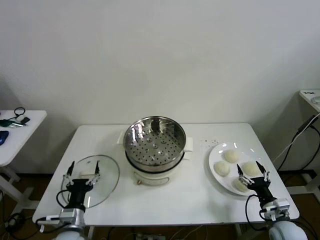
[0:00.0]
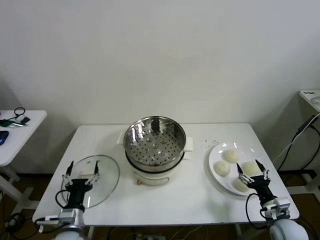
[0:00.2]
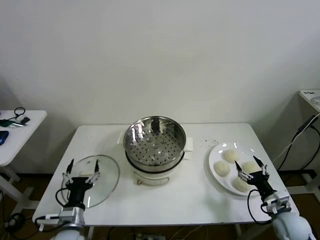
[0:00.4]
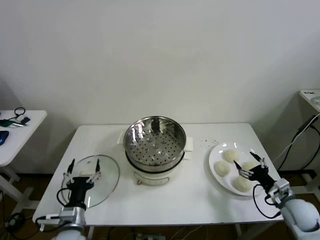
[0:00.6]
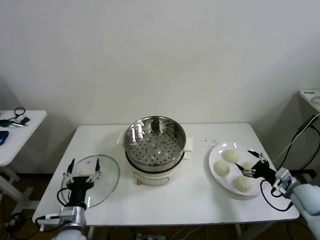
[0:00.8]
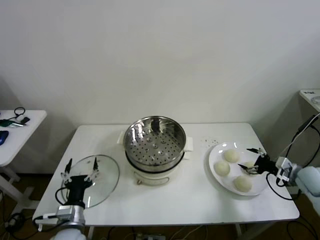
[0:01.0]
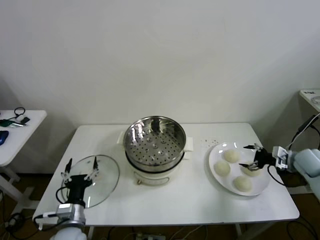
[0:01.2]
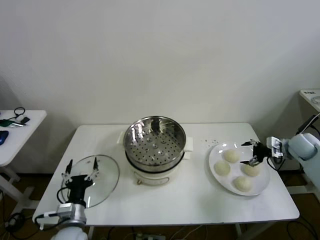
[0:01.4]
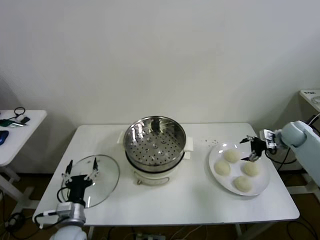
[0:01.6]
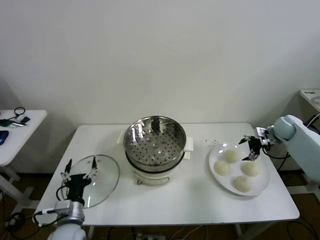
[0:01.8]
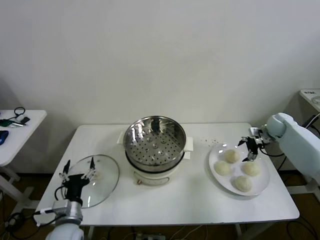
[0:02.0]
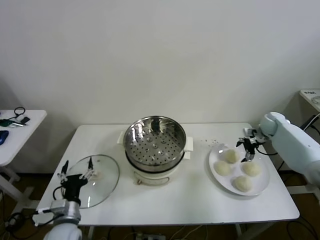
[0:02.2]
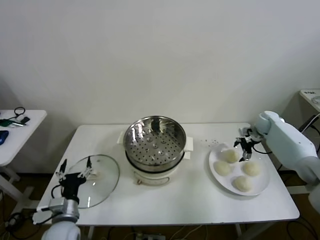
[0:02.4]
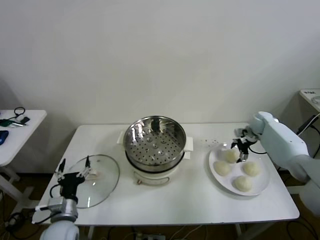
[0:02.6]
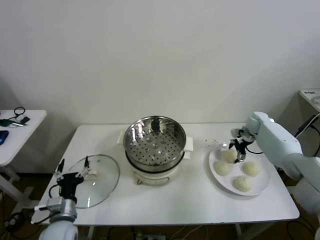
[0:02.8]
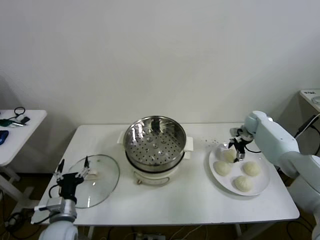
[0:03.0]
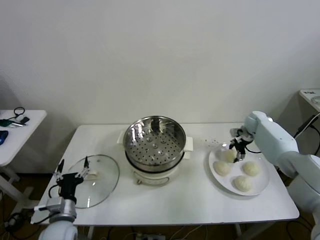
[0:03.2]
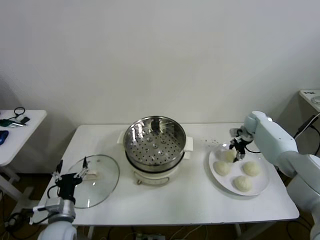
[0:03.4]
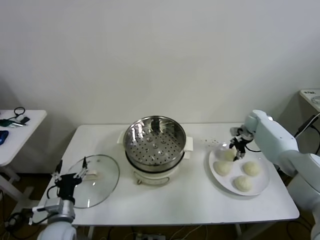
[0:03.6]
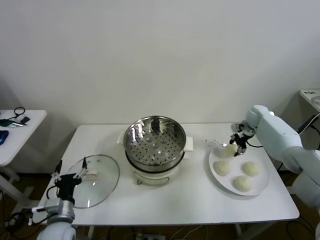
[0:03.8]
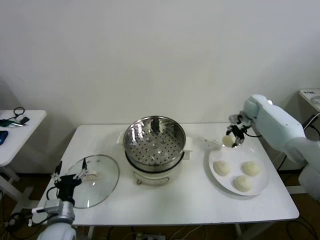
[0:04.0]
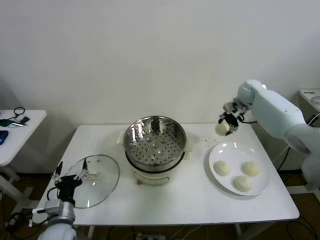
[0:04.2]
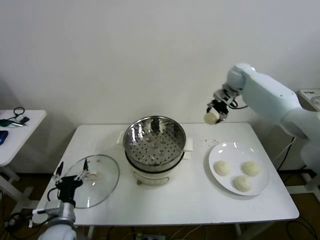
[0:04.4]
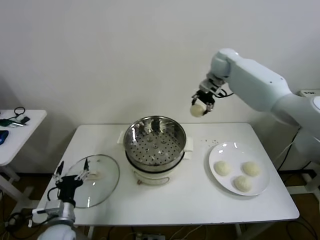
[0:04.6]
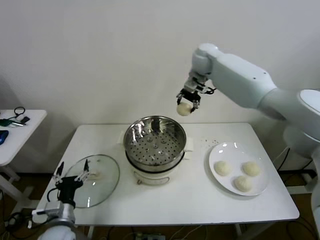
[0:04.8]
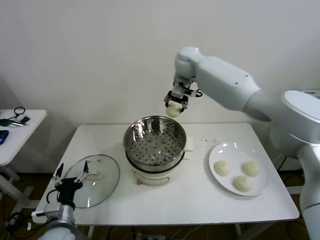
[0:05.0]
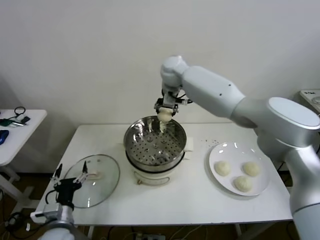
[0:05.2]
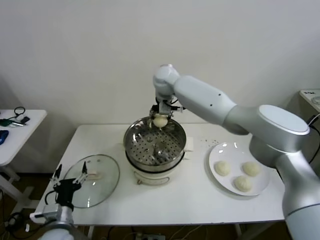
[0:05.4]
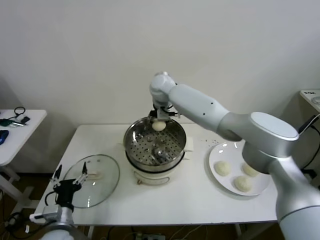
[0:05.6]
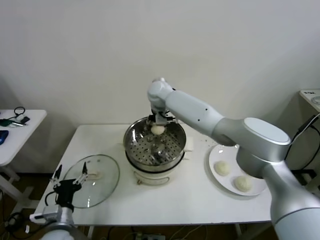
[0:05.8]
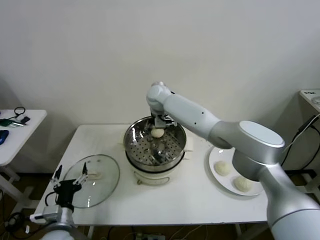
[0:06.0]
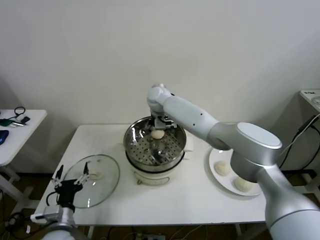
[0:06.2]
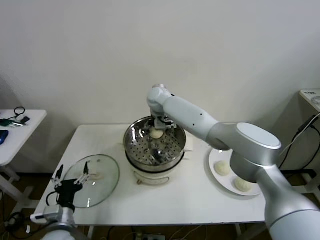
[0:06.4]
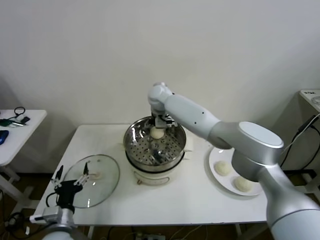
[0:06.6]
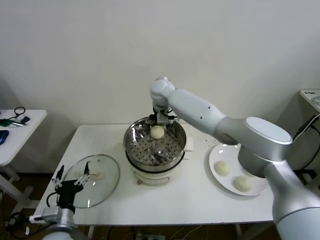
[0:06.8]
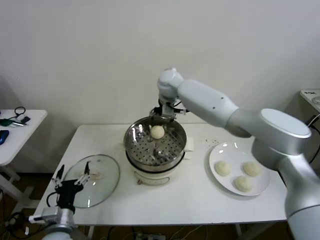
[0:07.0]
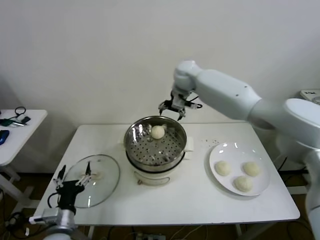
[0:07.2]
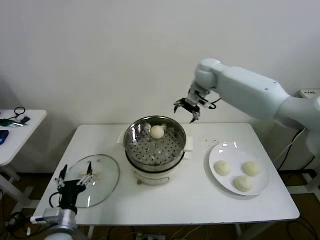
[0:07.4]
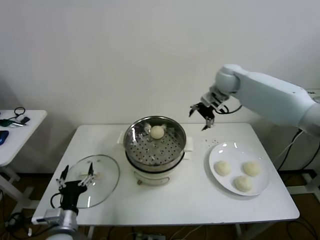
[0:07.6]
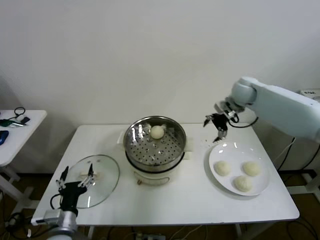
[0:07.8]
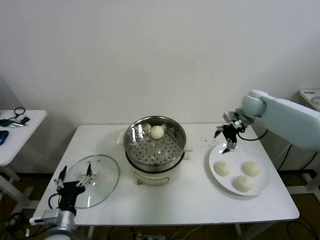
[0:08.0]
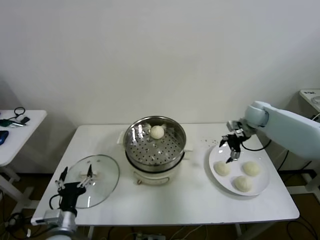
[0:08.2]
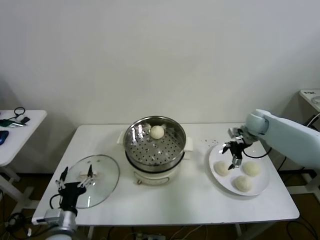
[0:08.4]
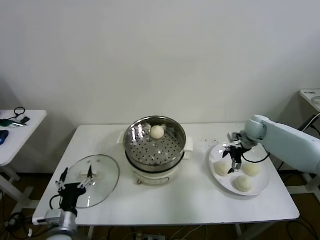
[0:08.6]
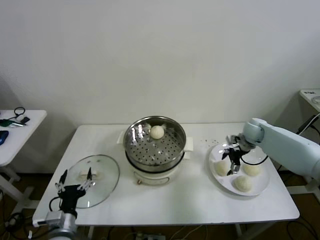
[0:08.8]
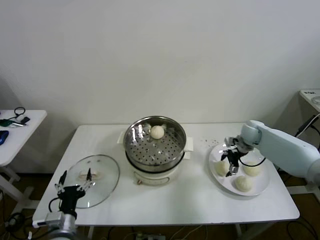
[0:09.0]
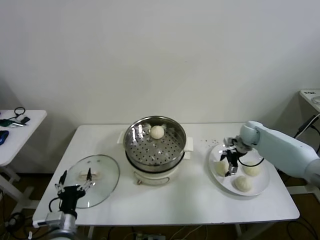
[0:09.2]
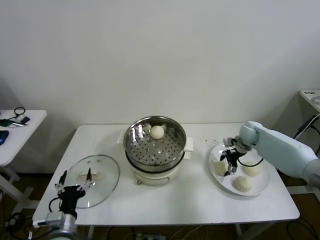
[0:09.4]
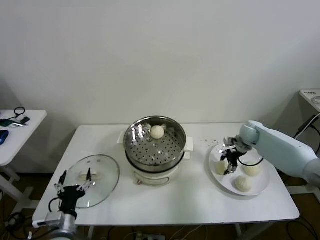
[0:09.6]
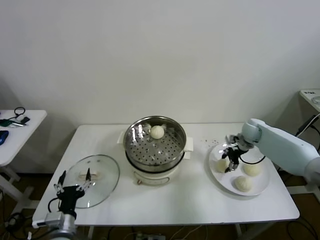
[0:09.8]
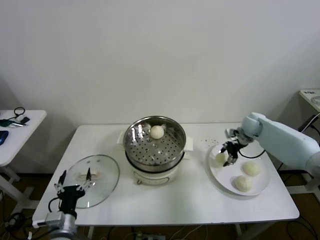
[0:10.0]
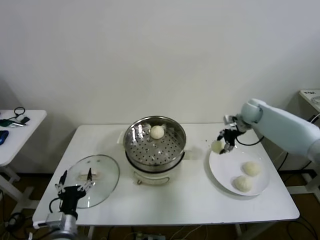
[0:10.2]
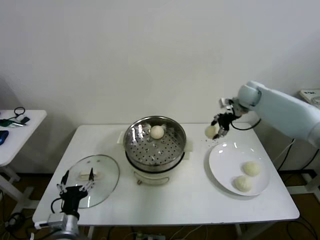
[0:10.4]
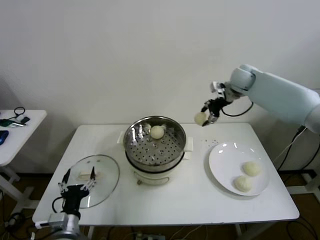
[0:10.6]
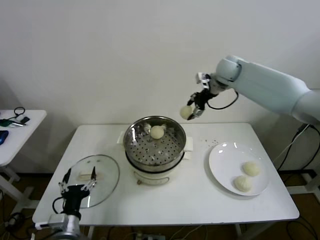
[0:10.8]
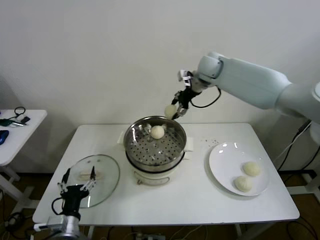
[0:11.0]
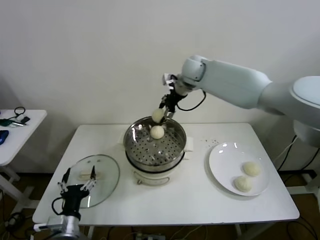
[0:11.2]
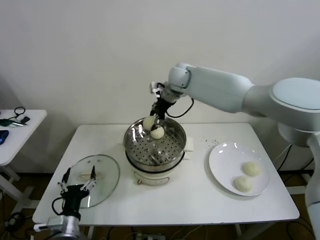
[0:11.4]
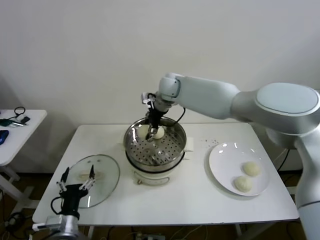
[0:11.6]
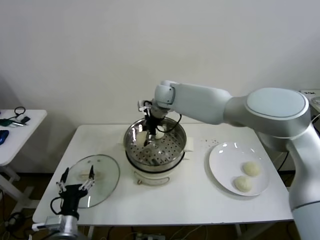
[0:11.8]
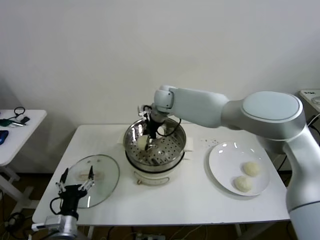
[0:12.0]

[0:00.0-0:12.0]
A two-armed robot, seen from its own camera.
Step, 0:00.0 to 0:03.4: Grasp the baozi in the plate with right gripper.
Step, 0:03.6 to 0:06.4: Place the baozi on the steamer with right gripper.
Step, 0:06.6 to 0:09.4: Grasp the baozi in the plate with right gripper.
0:01.6 to 0:03.0: The right gripper moves forward and to the left, some 10 cm, and closes its fingers.
0:03.0 to 0:04.4: The right gripper is displaced upward and to the left by approximately 30 cm, and closes.
0:04.4 to 0:06.0: The right gripper goes approximately 25 cm to the left.
0:06.0 to 0:07.6: The right gripper heads to the right, covering about 30 cm, and opens up.
0:07.6 to 0:09.0: The right gripper moves downward and to the right, some 25 cm.
0:09.0 to 0:10.4: The right gripper heads upward, covering about 20 cm, and closes up.
0:10.4 to 0:12.0: The right gripper is displaced to the left by about 30 cm.

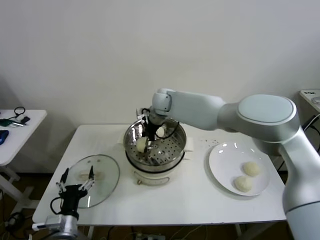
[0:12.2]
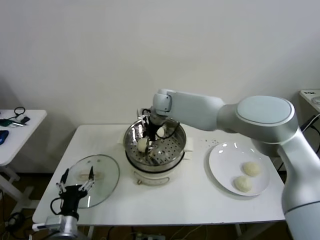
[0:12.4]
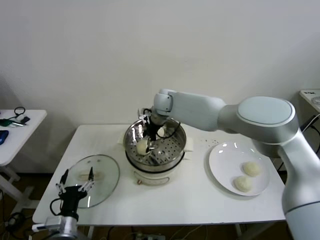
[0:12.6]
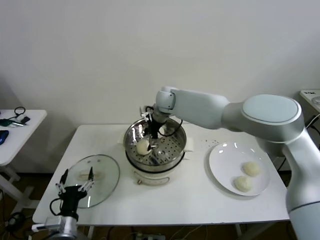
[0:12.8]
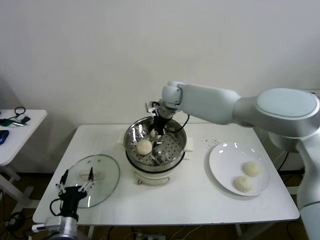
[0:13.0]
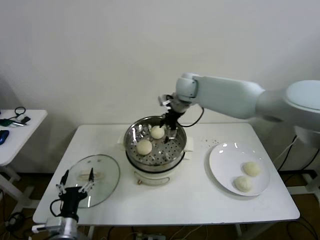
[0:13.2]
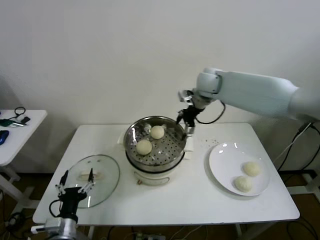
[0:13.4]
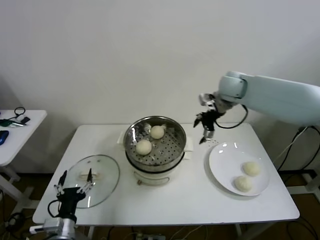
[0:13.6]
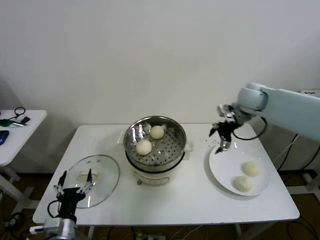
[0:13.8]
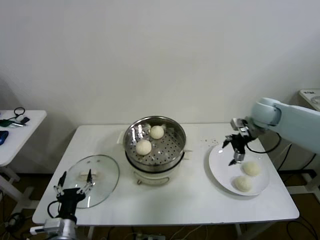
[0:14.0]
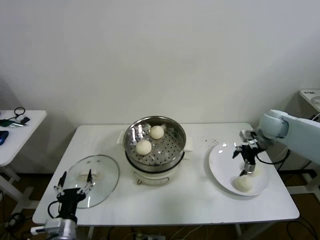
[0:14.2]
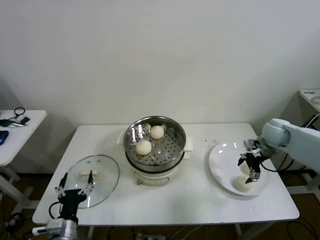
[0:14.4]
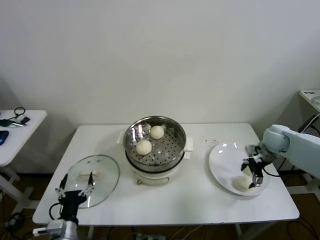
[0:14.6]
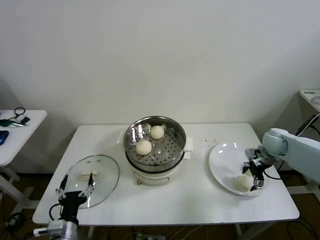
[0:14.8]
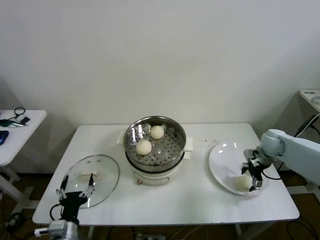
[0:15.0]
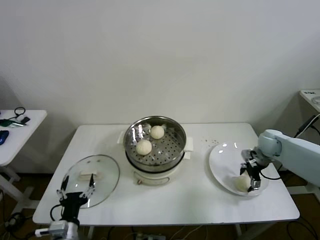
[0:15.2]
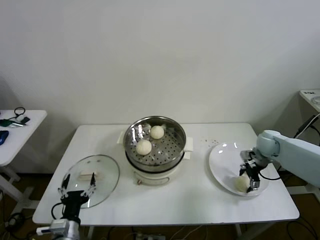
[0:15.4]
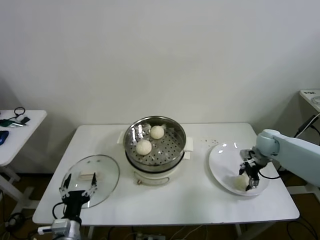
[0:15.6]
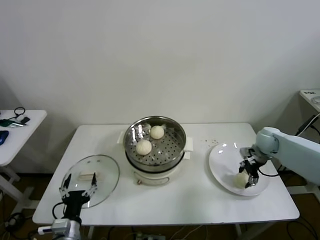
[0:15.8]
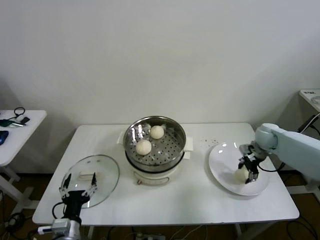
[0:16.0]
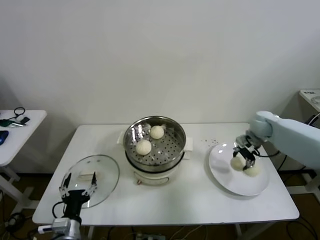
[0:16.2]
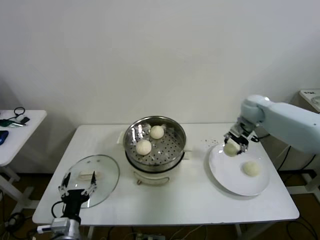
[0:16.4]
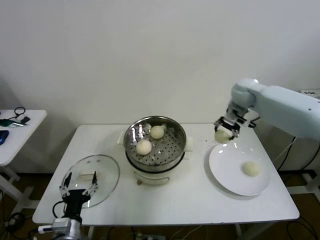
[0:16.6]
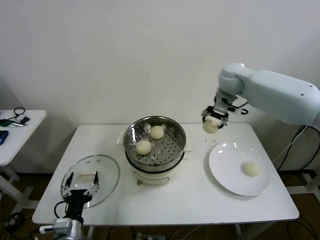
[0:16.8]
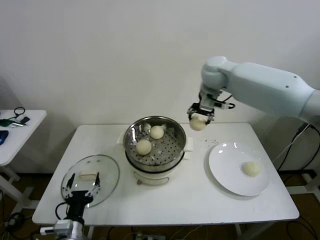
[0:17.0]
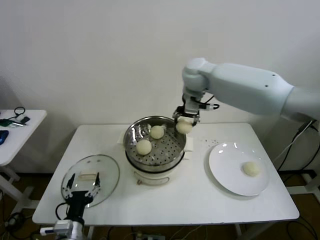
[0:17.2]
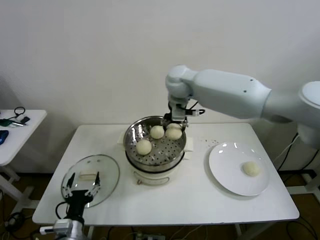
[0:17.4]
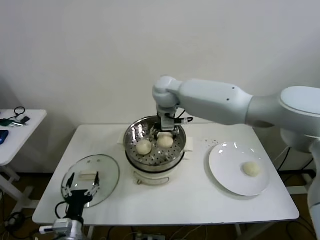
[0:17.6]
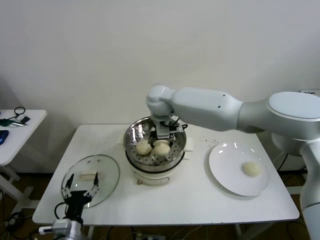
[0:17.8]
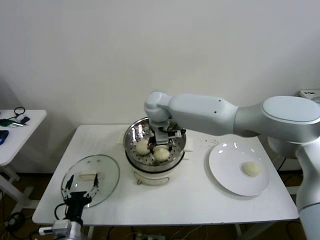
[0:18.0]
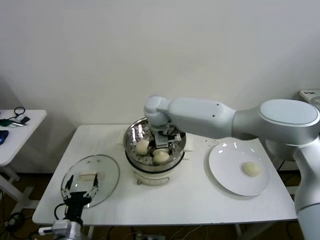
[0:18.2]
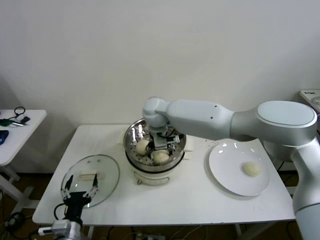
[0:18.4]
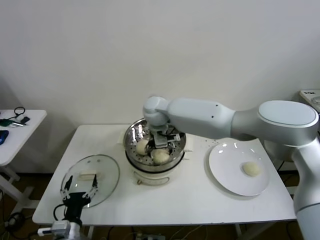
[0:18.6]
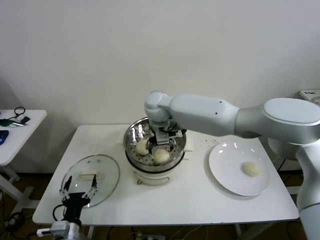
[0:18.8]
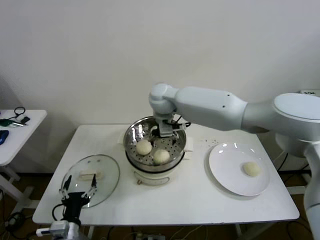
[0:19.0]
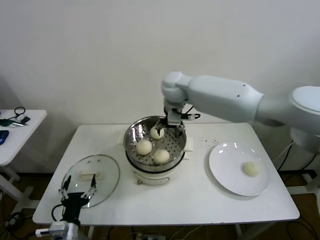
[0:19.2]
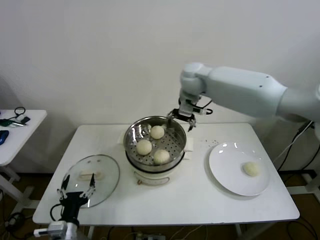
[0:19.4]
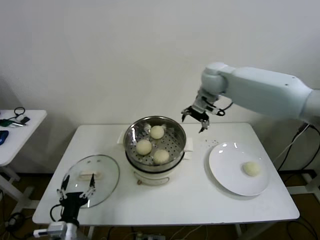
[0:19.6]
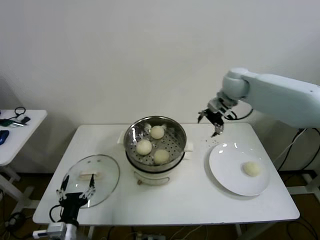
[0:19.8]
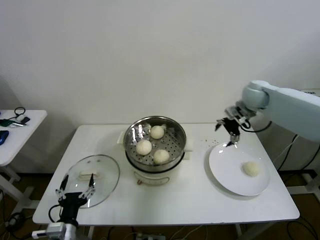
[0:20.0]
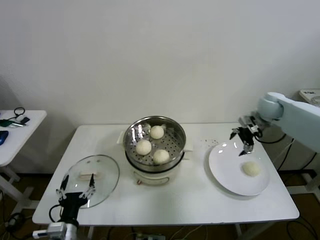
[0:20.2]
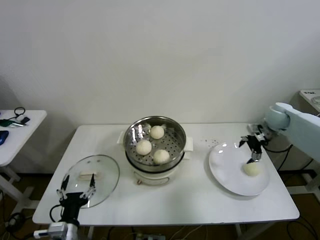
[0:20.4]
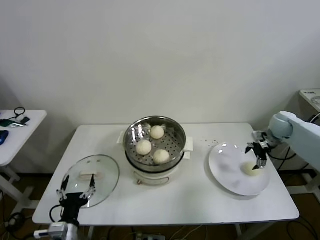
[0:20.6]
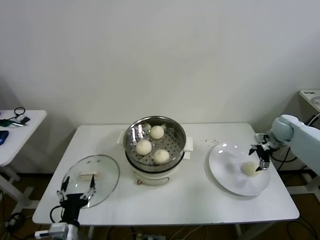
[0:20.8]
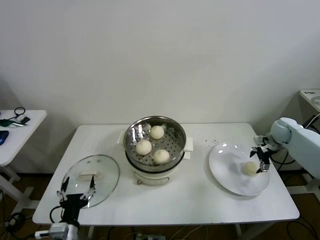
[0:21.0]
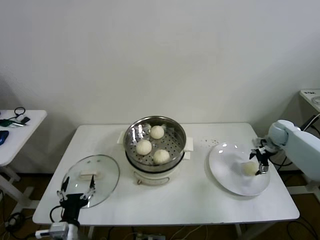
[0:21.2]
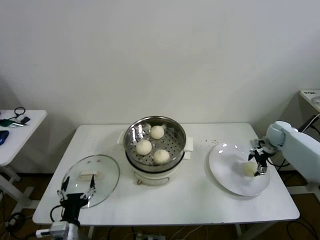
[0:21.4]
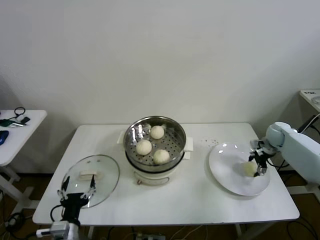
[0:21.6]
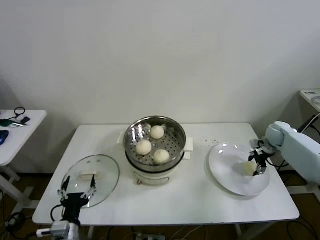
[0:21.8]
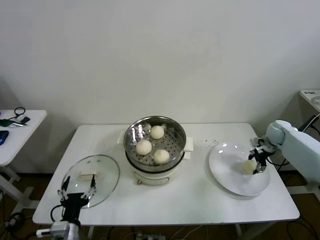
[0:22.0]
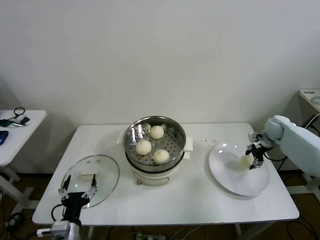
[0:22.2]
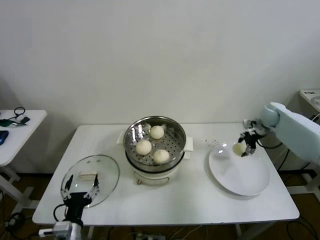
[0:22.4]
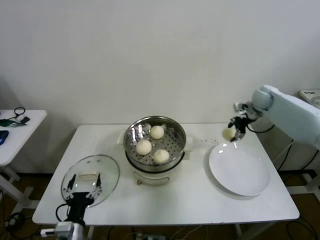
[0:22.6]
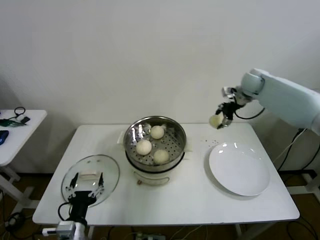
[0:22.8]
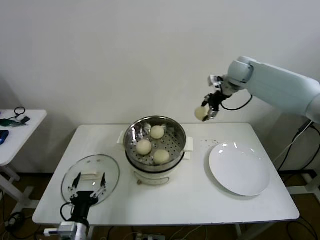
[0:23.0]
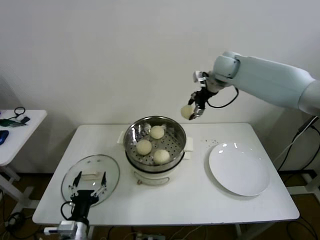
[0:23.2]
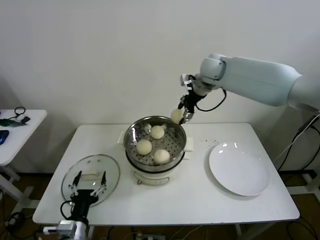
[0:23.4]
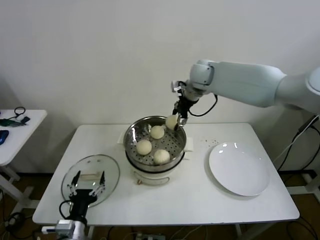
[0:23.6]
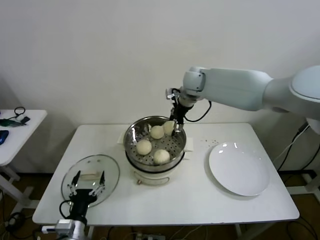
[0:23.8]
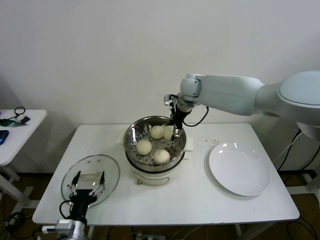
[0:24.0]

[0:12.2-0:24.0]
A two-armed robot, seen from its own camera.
Step, 0:12.6 to 0:15.6: Grasp the baozi in the plate with right gripper.
Step, 0:15.8 to 0:18.6: Place the baozi on the steamer with right gripper.
Step, 0:18.8 to 0:21.6: Grasp the baozi in the plate with right gripper.
0:12.2 to 0:13.6: The right gripper goes roughly 25 cm to the right, and opens up.
0:13.6 to 0:15.2: The right gripper is displaced downward and to the right by approximately 25 cm.
0:15.2 to 0:16.6: The right gripper shifts approximately 25 cm upward, to the left and forward, and closes its fingers.
0:16.6 to 0:18.2: The right gripper travels to the left by some 30 cm, and opens its fingers.
0:18.2 to 0:19.6: The right gripper shifts approximately 20 cm to the right and upward, and opens its fingers.
0:19.6 to 0:21.0: The right gripper shifts about 35 cm to the right and downward.
0:21.0 to 0:22.6: The right gripper goes roughly 15 cm upward, to the left and forward, and closes its fingers.
0:22.6 to 0:24.0: The right gripper shifts about 30 cm to the left.
